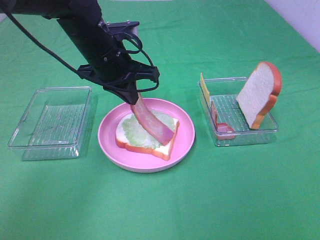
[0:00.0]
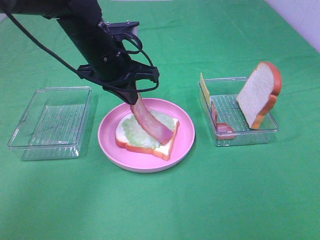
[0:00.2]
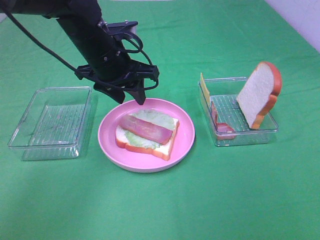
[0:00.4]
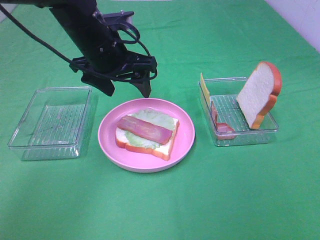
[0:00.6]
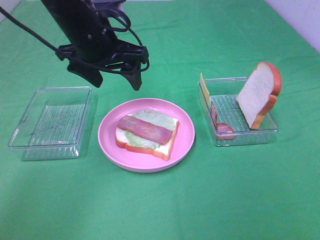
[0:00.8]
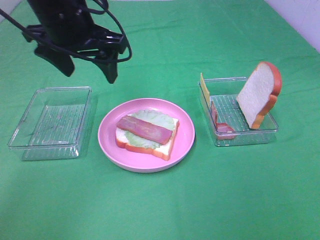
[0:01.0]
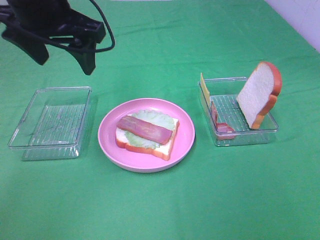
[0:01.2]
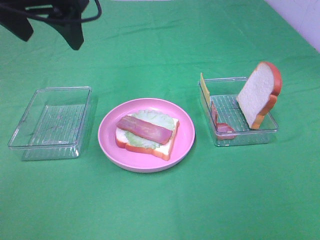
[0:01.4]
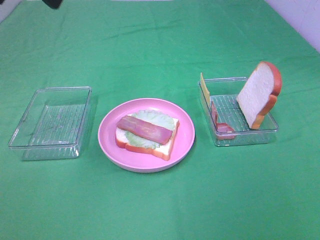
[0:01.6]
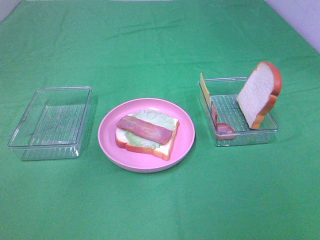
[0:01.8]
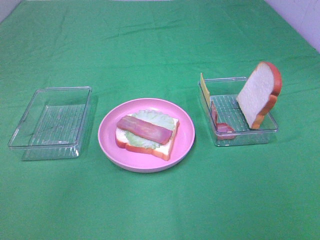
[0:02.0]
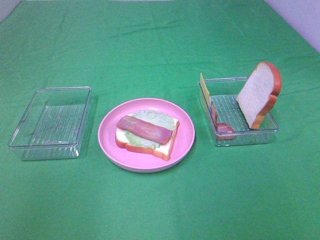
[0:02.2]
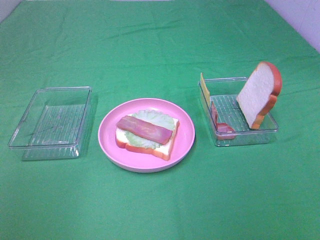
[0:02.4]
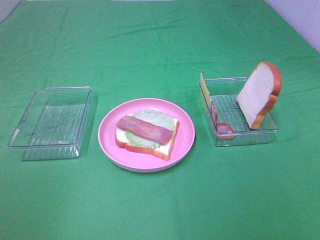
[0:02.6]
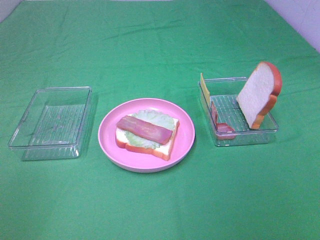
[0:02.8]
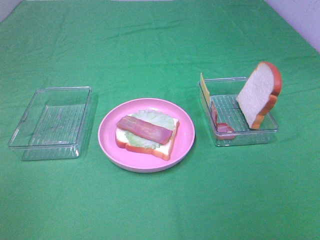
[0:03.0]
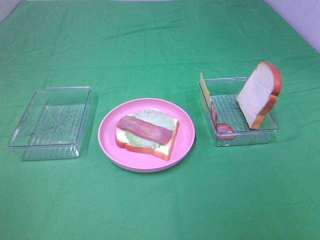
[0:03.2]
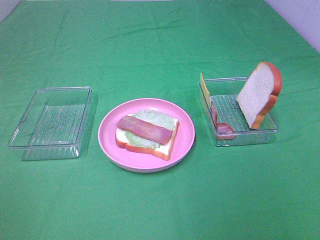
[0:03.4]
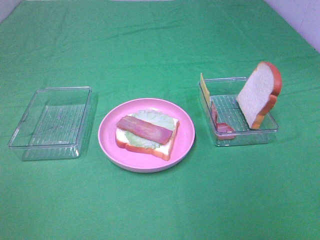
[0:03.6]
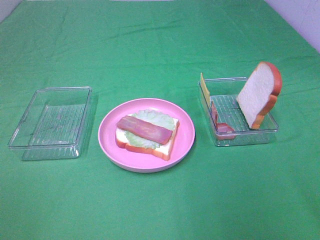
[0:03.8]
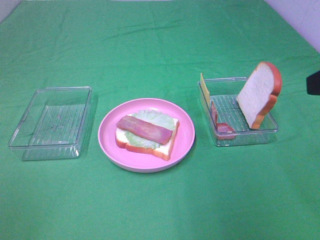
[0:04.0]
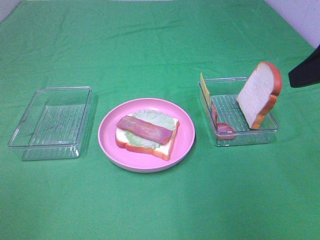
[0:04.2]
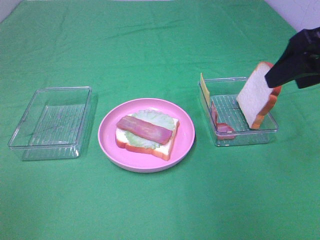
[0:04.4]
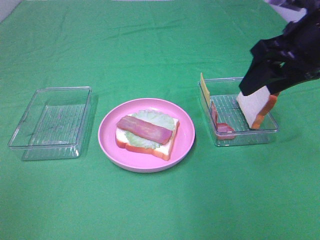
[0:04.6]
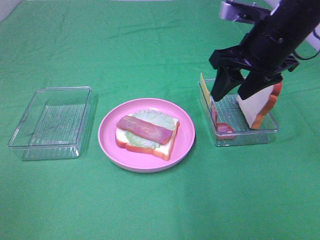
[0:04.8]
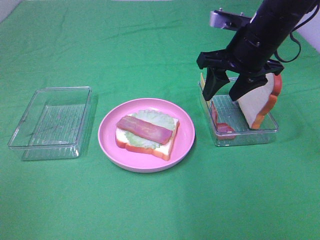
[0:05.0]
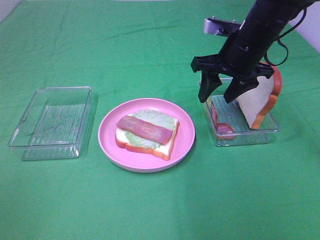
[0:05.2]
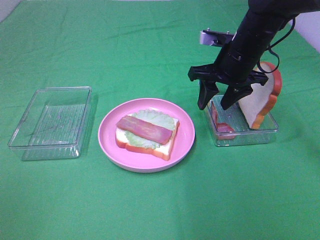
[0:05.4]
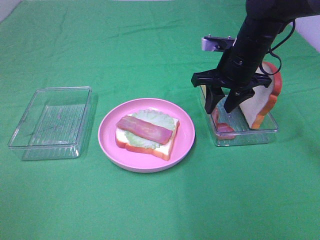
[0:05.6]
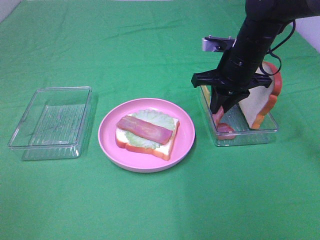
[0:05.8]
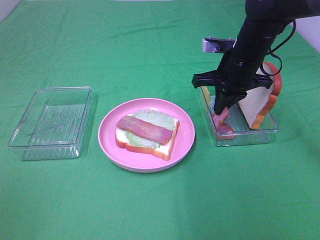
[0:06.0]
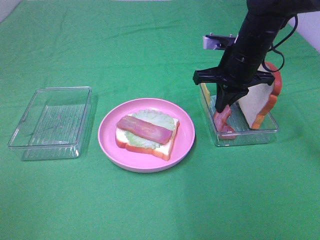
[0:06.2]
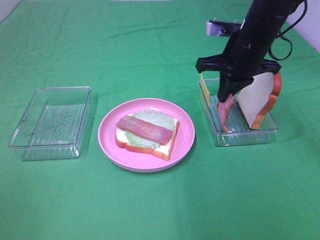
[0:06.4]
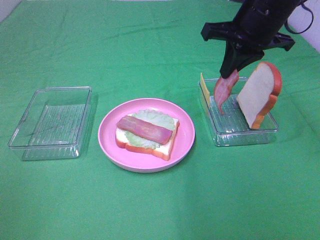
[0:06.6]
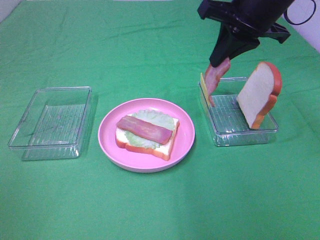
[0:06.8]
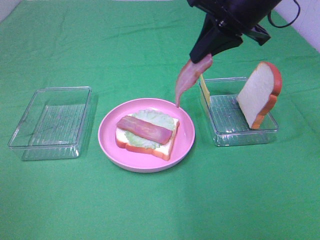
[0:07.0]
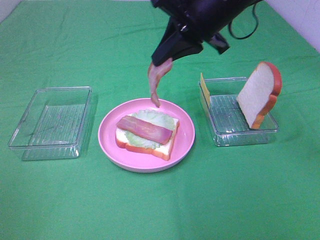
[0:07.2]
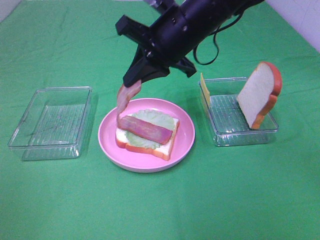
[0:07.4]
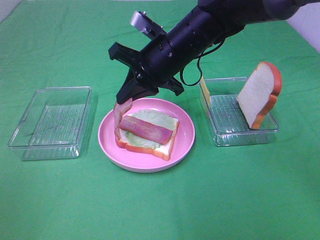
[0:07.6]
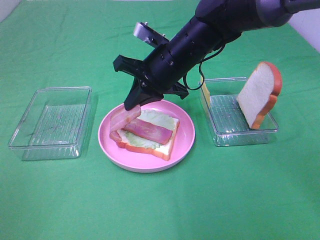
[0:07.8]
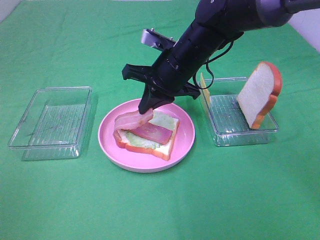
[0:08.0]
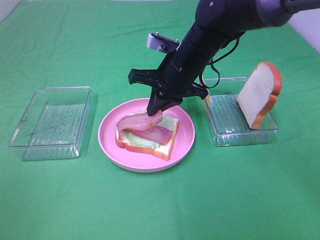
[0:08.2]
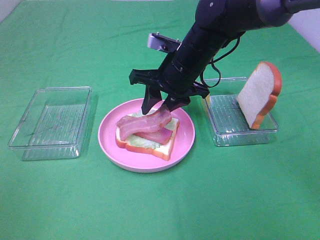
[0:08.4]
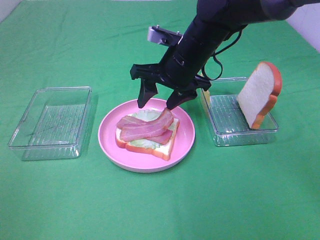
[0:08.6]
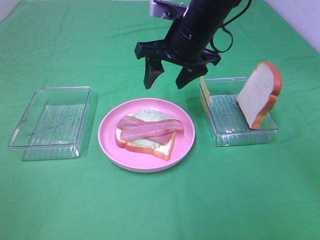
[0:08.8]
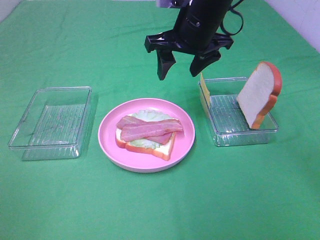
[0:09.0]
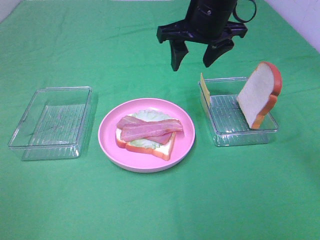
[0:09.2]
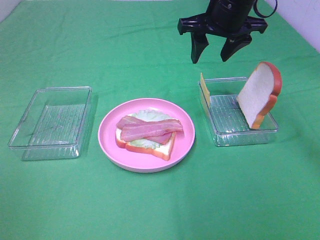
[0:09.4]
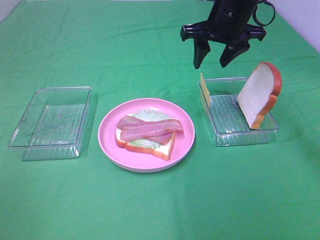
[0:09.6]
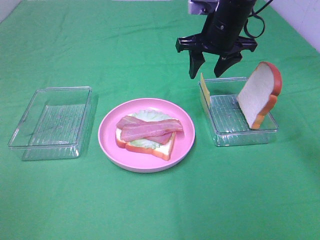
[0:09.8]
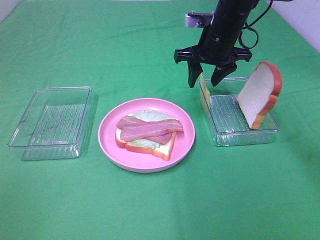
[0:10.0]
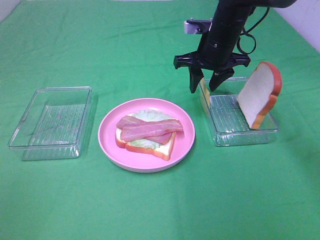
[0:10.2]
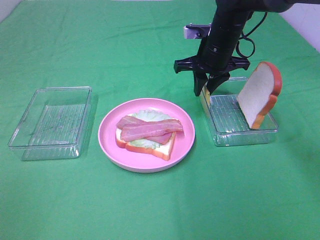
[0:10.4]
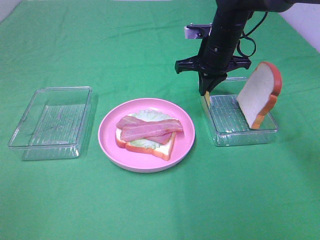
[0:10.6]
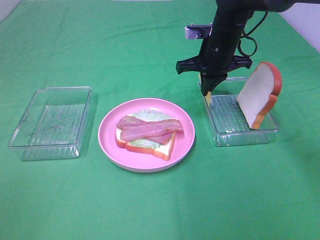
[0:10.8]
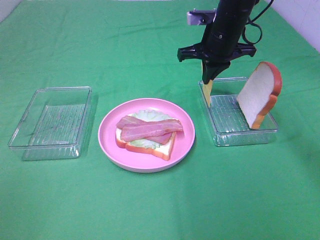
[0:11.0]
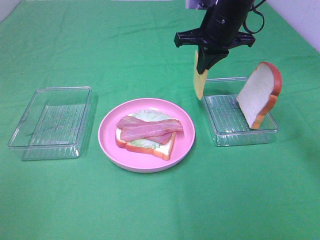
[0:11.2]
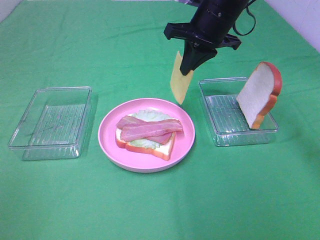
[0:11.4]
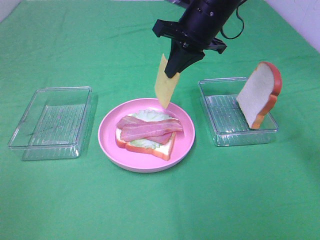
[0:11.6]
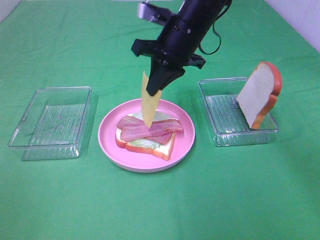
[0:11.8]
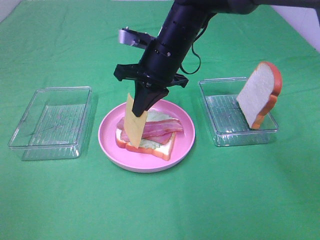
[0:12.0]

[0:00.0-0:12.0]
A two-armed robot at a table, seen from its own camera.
Task of the whole recording: Make sandwiches.
Step, 0:00.6 to 0:06.0: Right hand:grab the bacon.
Step, 0:06.2 to 0:08.6: Right hand:place bacon on bacon.
Step, 0:08.8 to 0:10.6: Right hand:grab the cheese slice.
0:00.0 to 0:01.6: The left gripper moves upward, backward and to the left, some 25 cm, and opens up.
0:01.6 to 0:03.0: The left gripper shifts some 30 cm backward, to the left and downward.
0:03.0 to 0:04.4: The right gripper shifts roughly 30 cm forward.
0:04.4 to 0:06.0: The right gripper goes approximately 20 cm downward, forward and to the left, and closes.
0:06.0 to 0:07.6: The right gripper travels to the left by some 10 cm, and moves some 15 cm upward and comes back.
0:07.6 to 0:09.0: The right gripper travels upward by approximately 5 cm, and opens up.
0:09.0 to 0:10.4: The right gripper is displaced downward and forward by approximately 10 cm, and closes.
0:10.4 to 0:12.0: The right gripper goes some 10 cm to the left and backward.

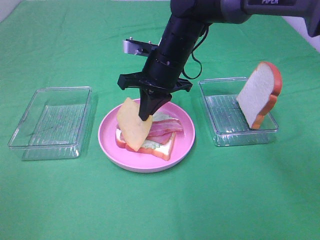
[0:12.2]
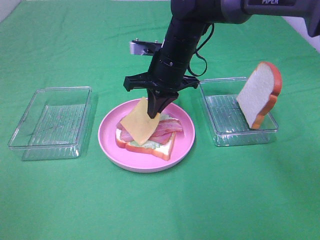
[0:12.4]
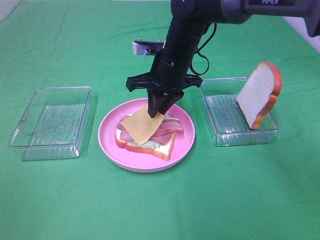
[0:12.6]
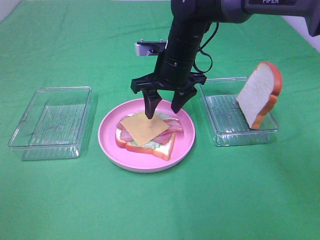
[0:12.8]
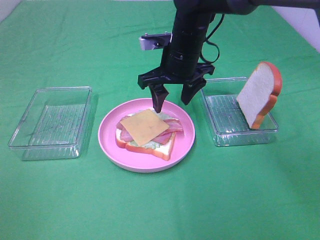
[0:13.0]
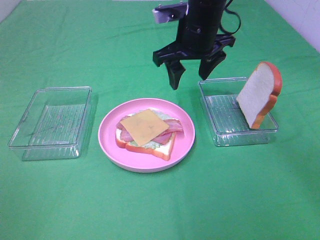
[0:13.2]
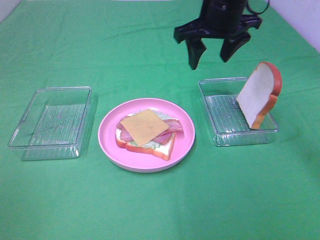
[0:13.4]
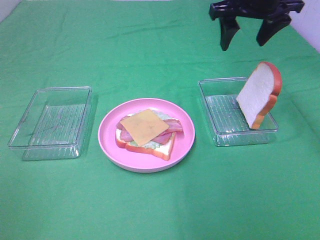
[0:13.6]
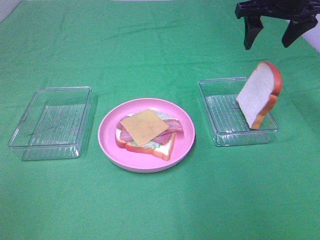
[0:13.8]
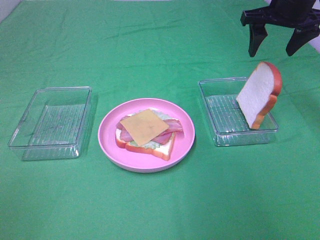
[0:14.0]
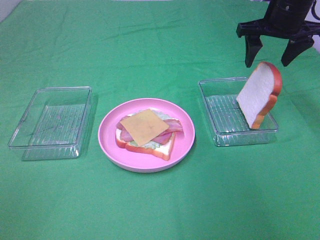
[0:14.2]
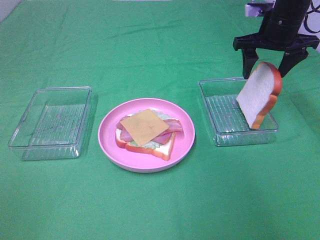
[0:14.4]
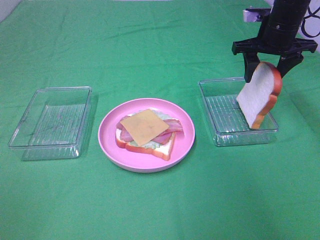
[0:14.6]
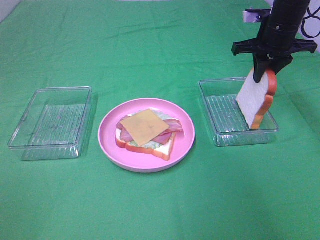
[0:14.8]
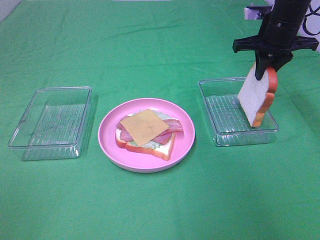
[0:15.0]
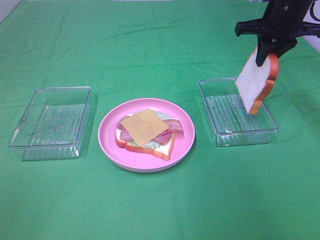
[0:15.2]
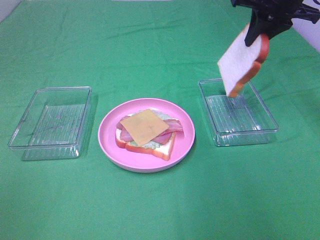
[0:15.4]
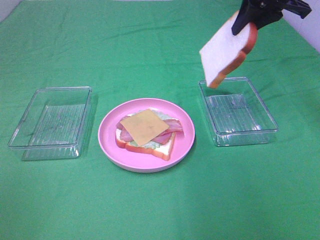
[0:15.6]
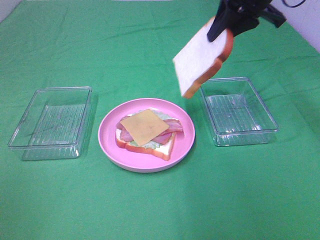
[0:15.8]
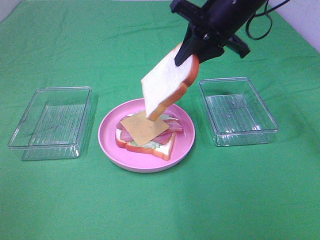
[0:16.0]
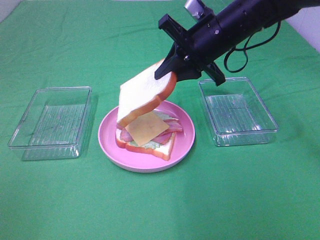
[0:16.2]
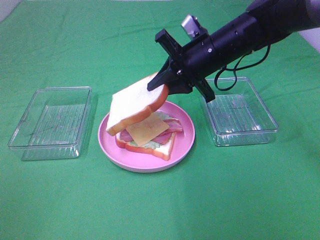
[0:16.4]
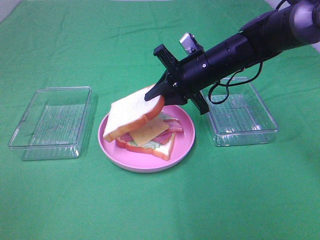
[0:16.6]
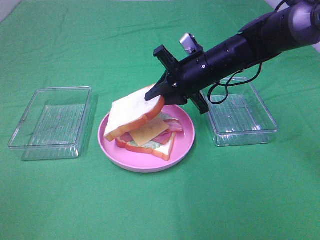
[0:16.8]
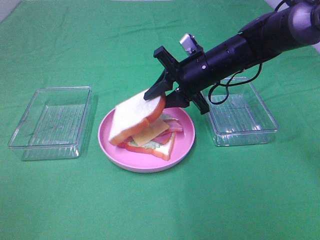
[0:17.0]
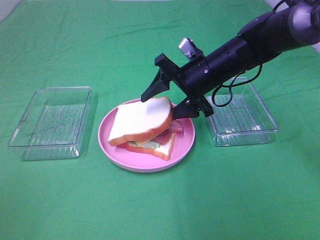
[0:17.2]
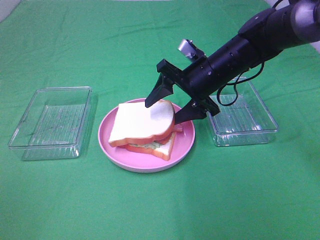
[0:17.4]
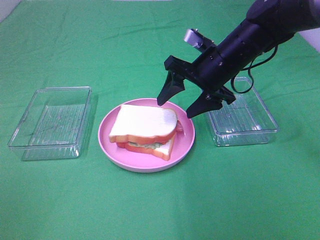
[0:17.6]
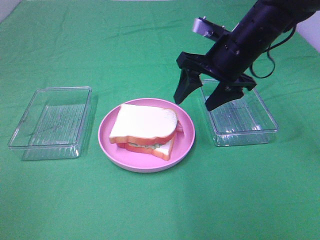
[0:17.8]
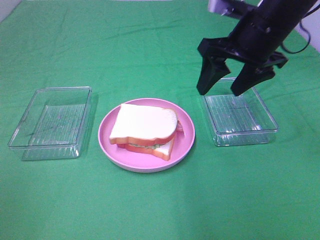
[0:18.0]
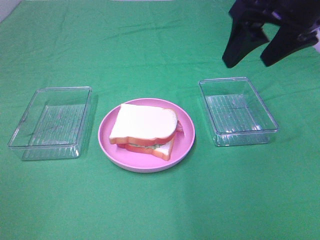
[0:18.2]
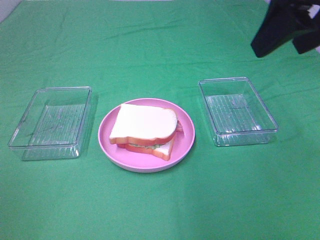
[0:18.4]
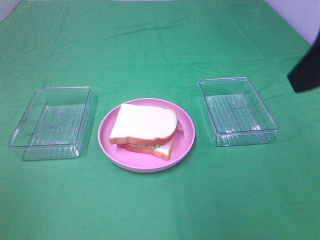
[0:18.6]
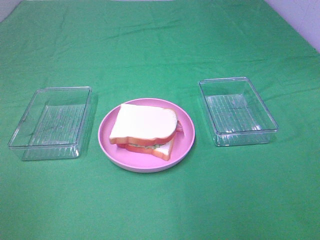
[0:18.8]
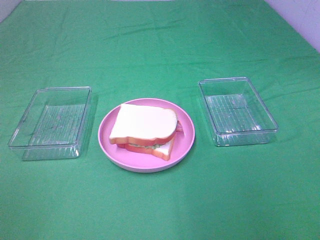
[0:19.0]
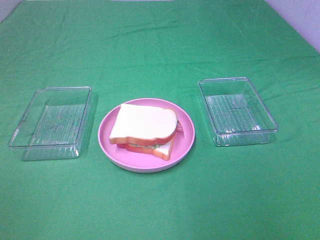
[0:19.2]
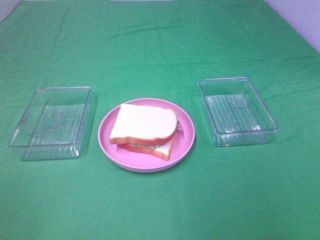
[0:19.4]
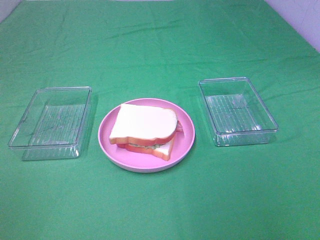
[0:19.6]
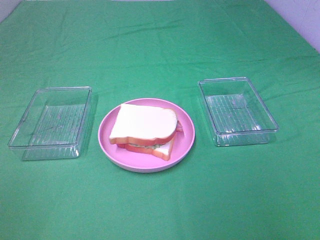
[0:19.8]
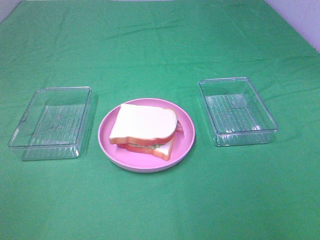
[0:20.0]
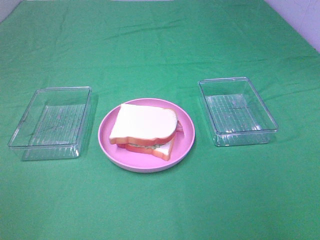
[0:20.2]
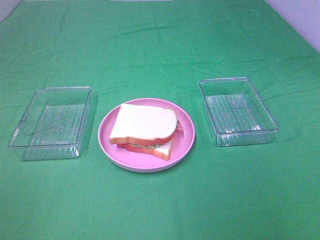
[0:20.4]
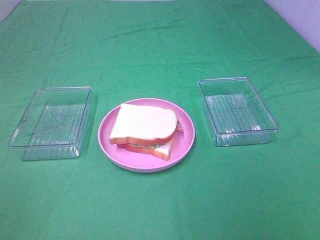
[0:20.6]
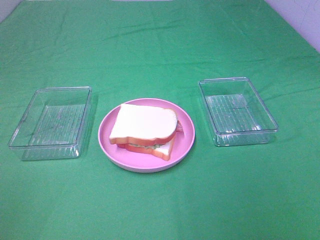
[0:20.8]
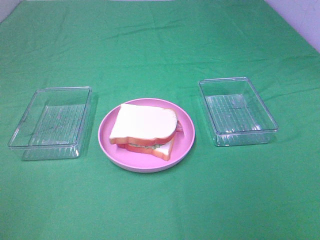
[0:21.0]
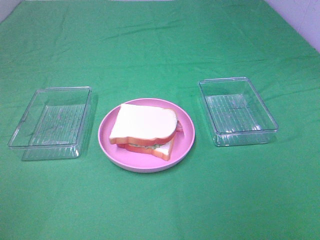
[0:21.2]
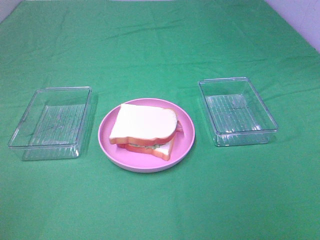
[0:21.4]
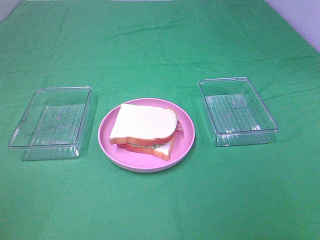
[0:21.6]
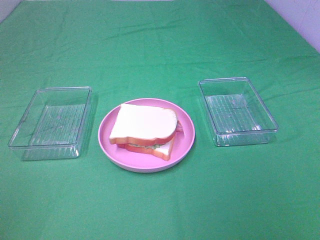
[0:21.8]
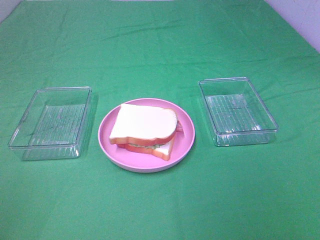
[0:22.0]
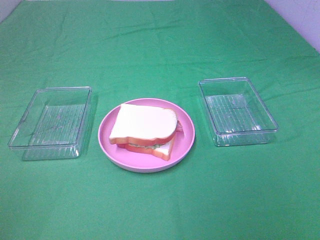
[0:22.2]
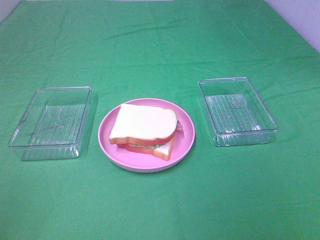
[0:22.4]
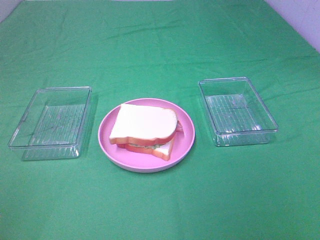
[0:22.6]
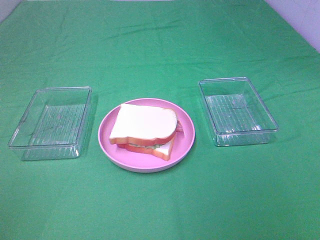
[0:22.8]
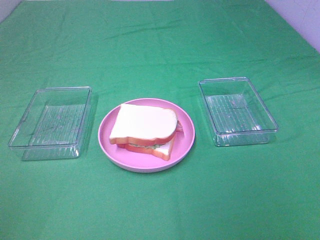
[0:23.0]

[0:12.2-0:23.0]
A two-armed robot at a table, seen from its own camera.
Task of the whole recording: Make sandwiches.
Step, 0:12.8 to 0:14.8: Right hand:grab the bread slice.
Step, 0:15.0 to 0:17.6: Right hand:place the bread slice on the cheese slice.
0:12.2 to 0:13.8: The right gripper heads to the right and upward, covering some 25 cm, and opens its fingers.
0:13.8 to 0:15.2: The right gripper closes up.
0:15.2 to 0:16.8: The right gripper heads to the left, downward and backward, covering about 15 cm.
0:16.8 to 0:18.4: The right gripper shifts roughly 30 cm upward, backward and to the right, and opens up.
0:18.4 to 0:20.0: The right gripper is displaced backward by some 20 cm.
0:21.4 to 0:23.0: Both grippers stay put.
